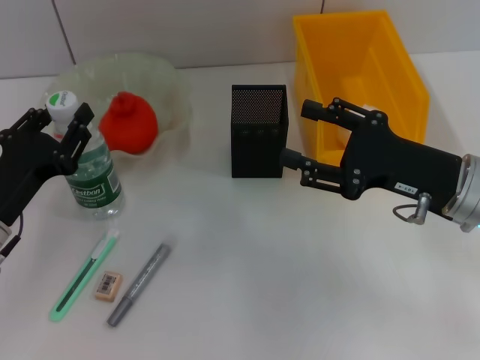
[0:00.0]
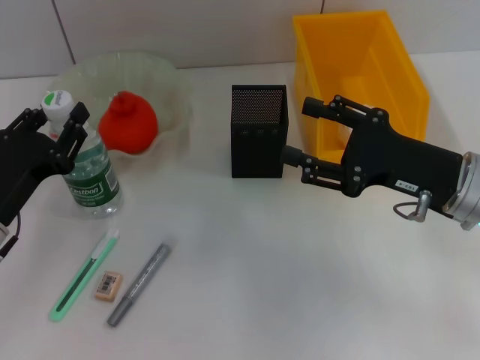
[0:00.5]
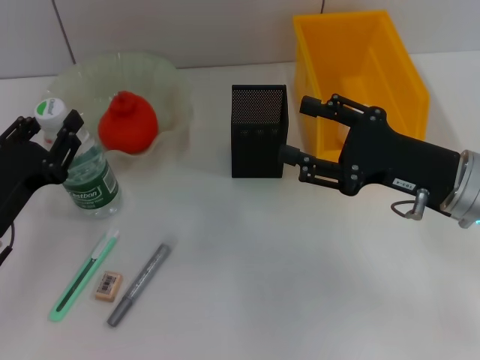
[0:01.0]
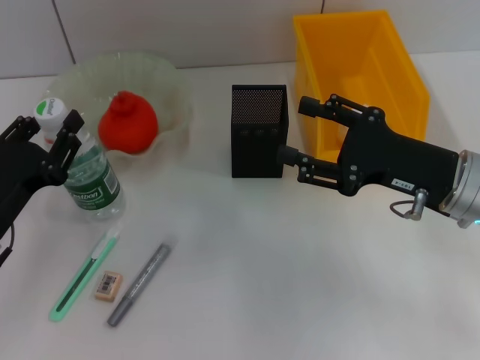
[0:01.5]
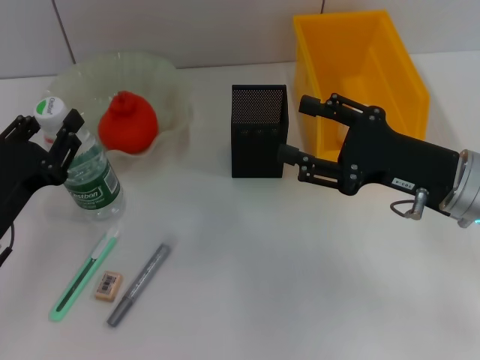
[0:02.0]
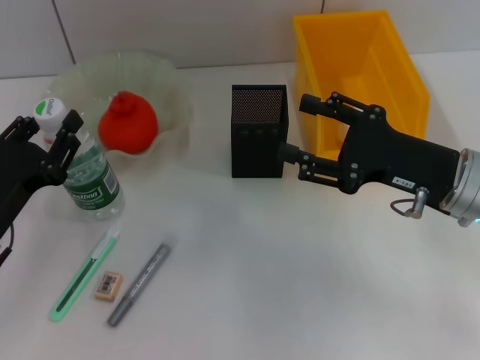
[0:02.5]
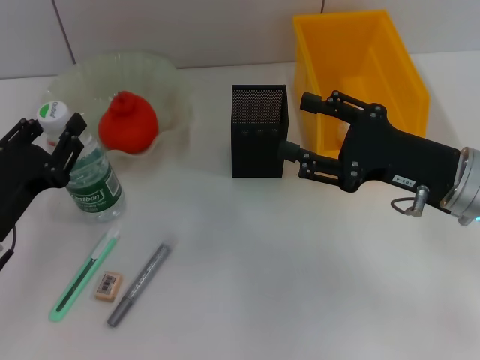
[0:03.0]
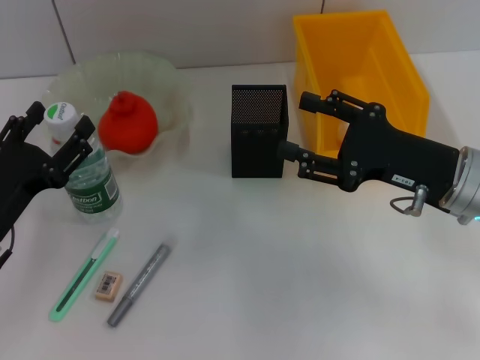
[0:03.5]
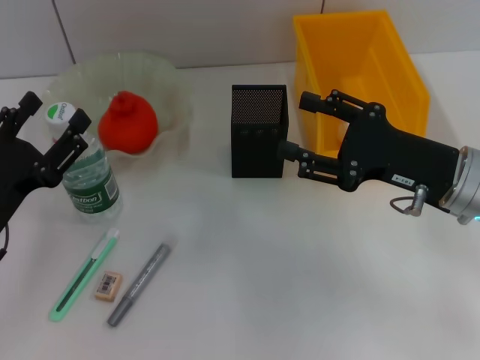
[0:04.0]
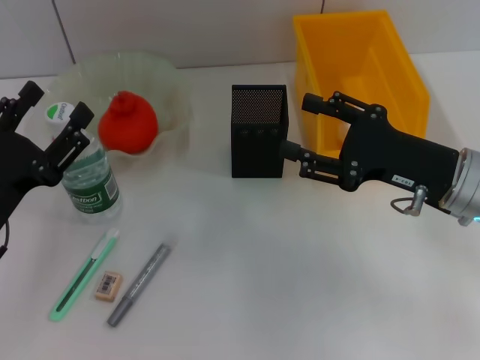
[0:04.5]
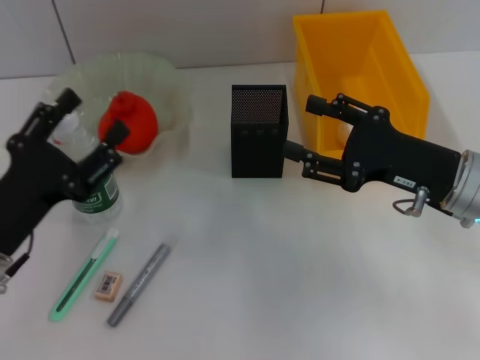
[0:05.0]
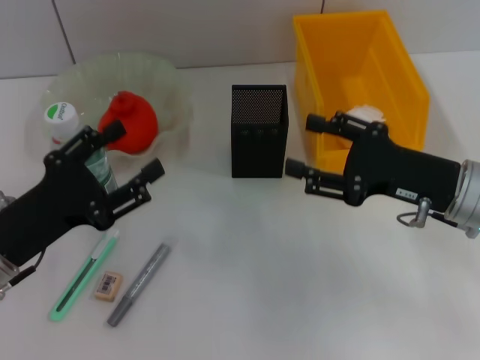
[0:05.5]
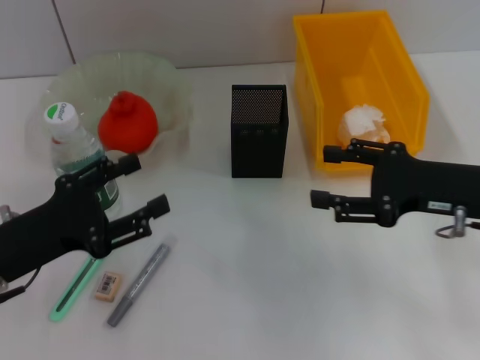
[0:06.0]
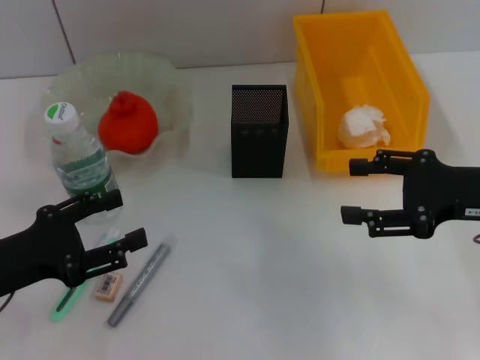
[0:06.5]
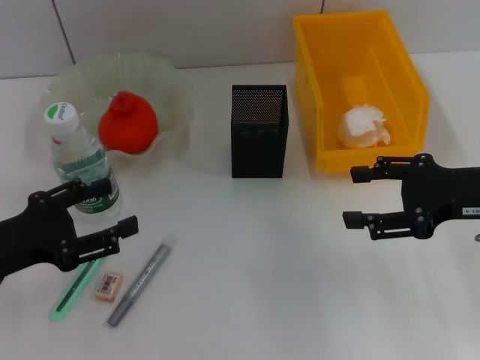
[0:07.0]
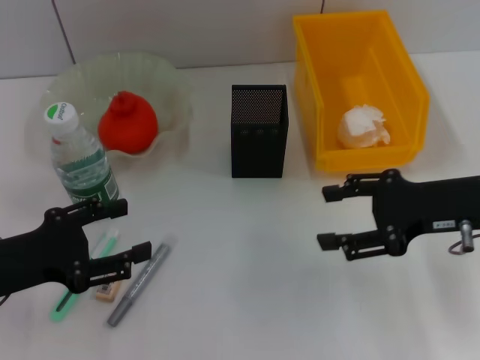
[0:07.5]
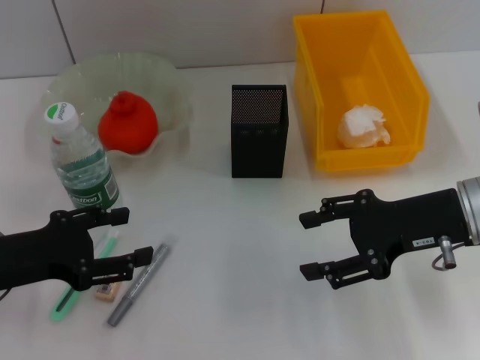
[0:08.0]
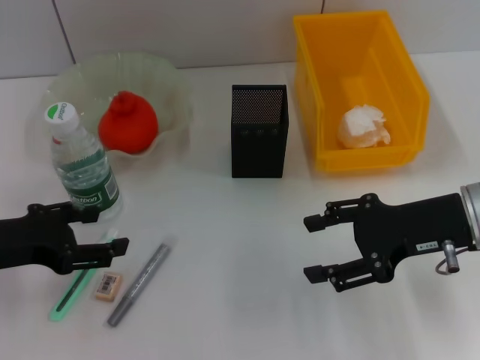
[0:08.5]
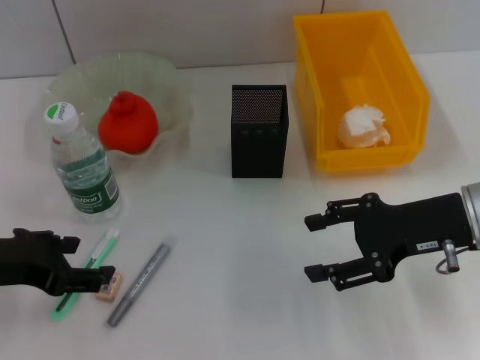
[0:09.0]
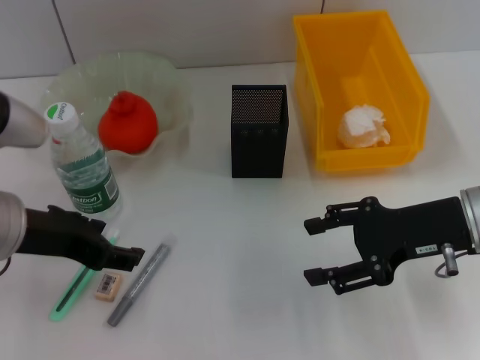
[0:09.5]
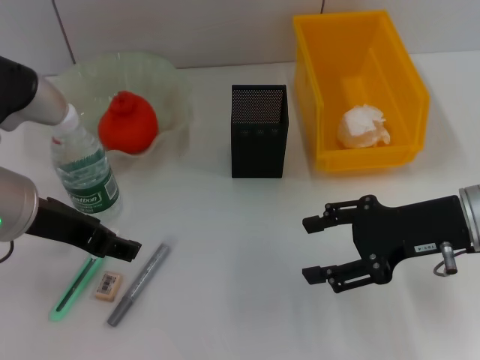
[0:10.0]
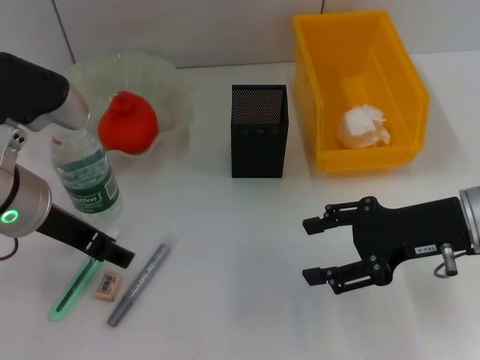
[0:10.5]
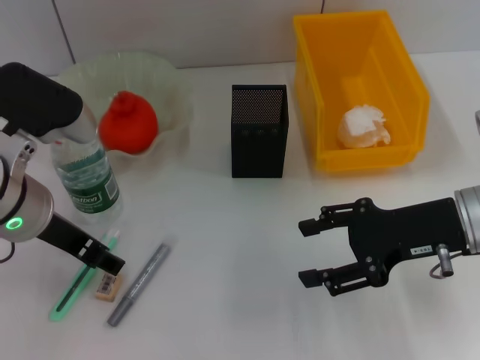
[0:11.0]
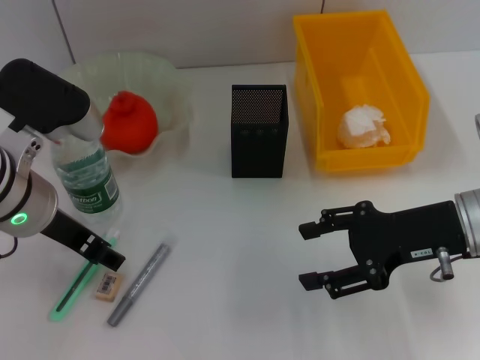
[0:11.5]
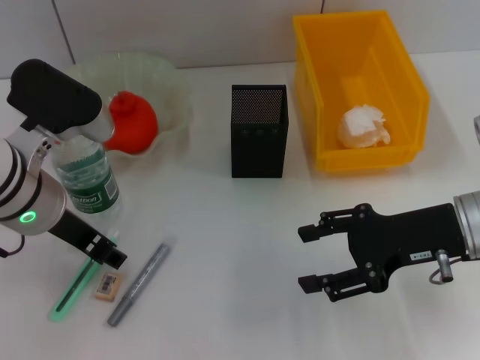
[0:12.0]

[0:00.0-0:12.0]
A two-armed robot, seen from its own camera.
Step, 0:00.0 to 0:03.5: Place the water bottle on the table with the left hand.
0:00.0 to 0:02.0: There are only small adjustments of the grippers.
0:02.0 to 0:04.0: The left gripper opens up.
0:08.0 to 0:10.0: The left gripper heads upward and to the right, covering roughly 10 cm.
0:10.0 to 0:12.0: The grippers move only a little.

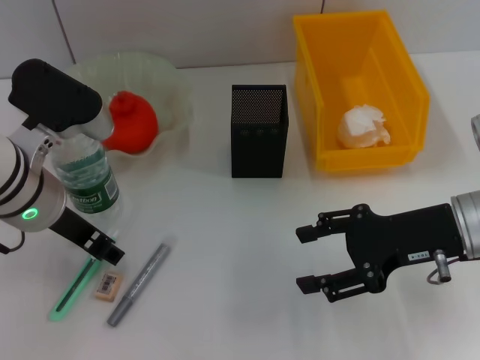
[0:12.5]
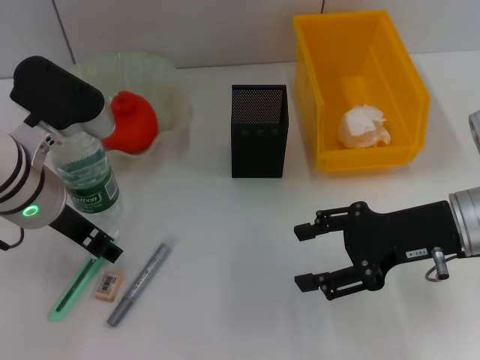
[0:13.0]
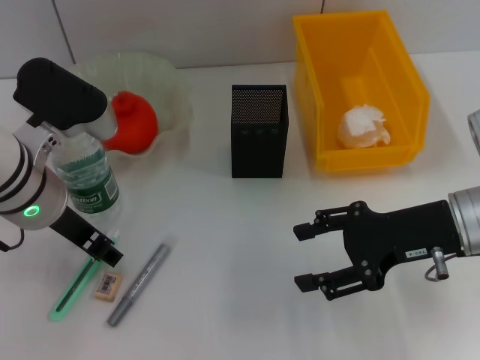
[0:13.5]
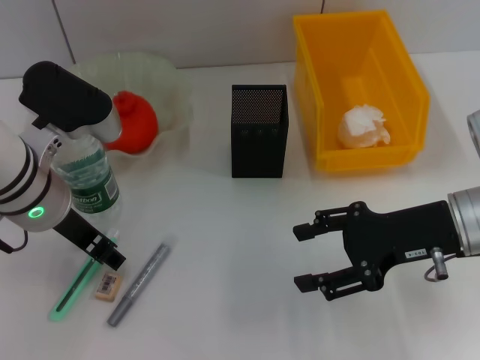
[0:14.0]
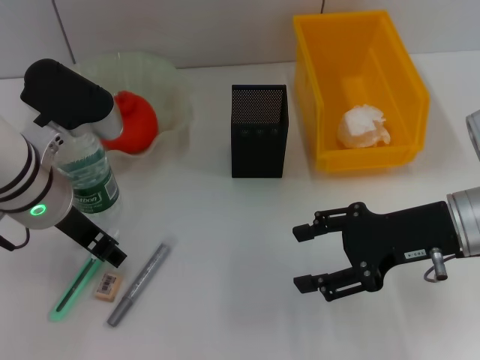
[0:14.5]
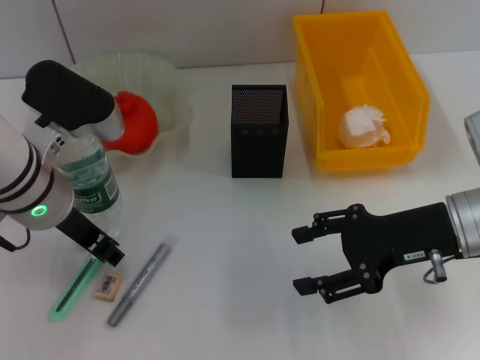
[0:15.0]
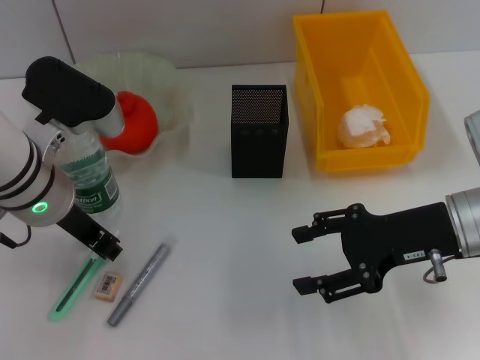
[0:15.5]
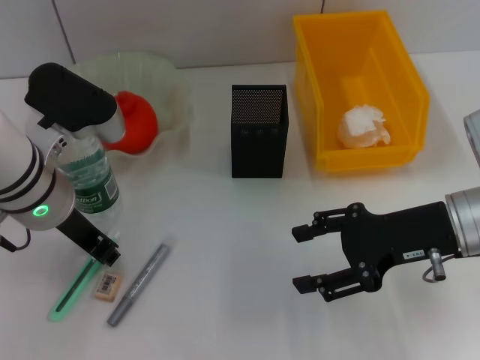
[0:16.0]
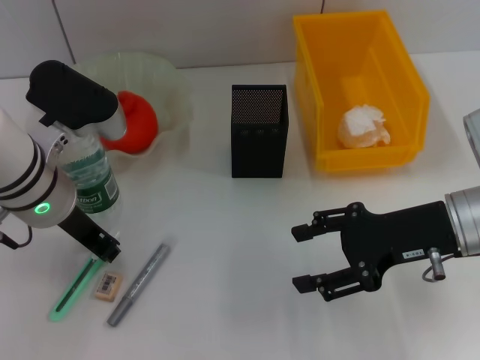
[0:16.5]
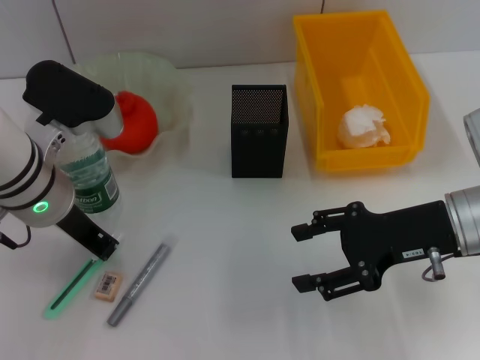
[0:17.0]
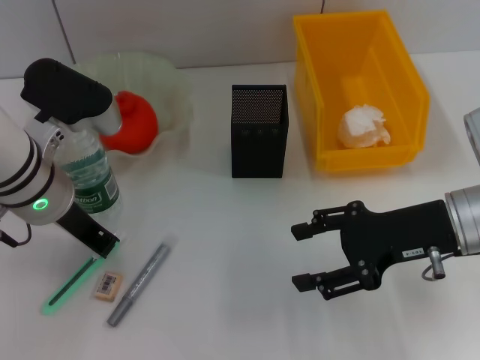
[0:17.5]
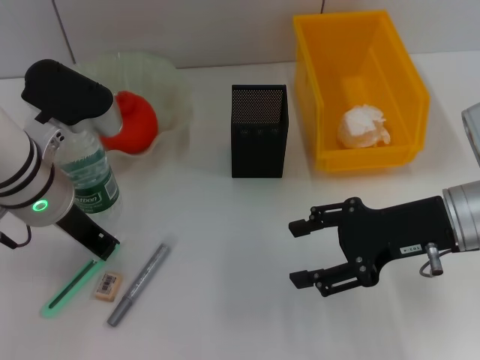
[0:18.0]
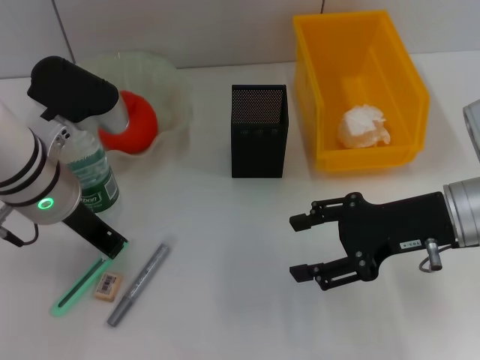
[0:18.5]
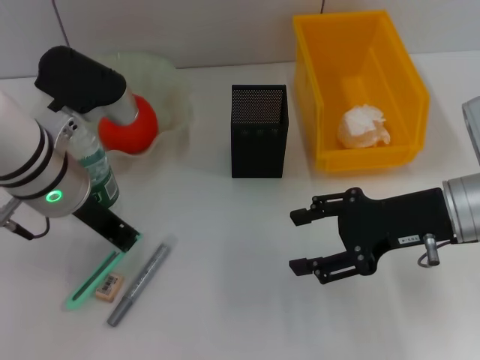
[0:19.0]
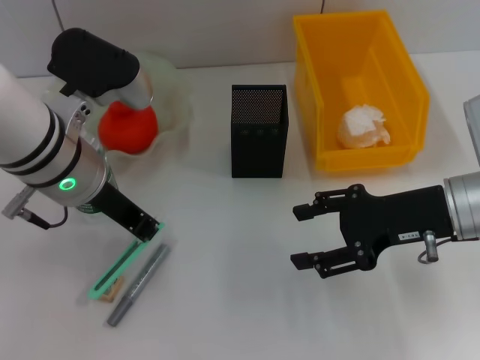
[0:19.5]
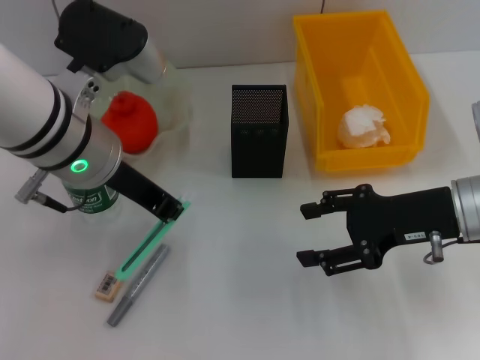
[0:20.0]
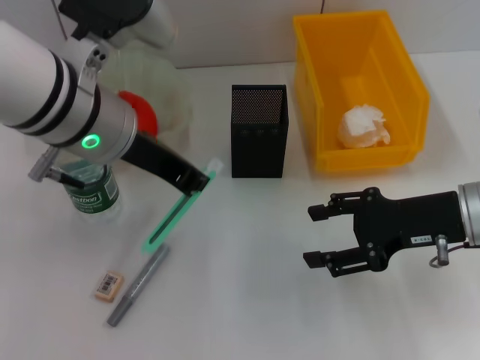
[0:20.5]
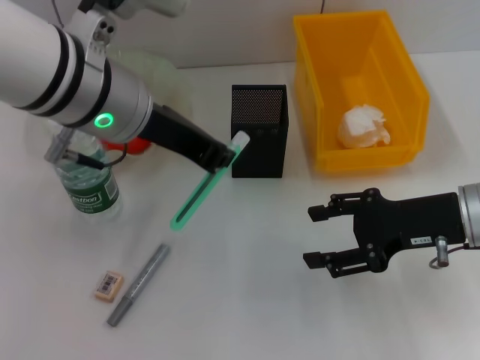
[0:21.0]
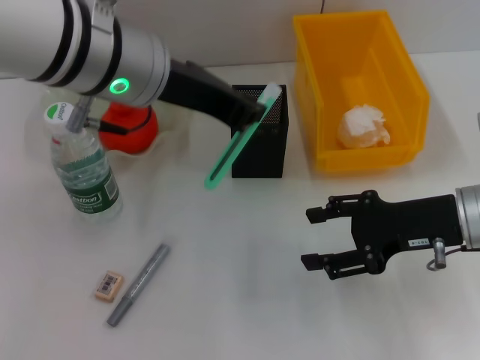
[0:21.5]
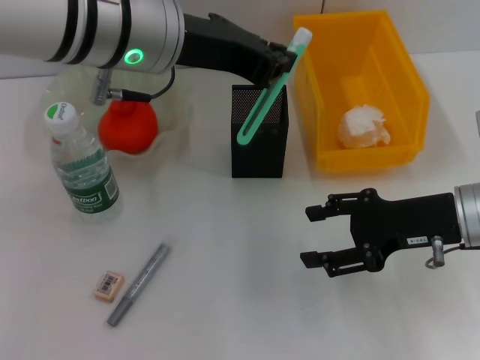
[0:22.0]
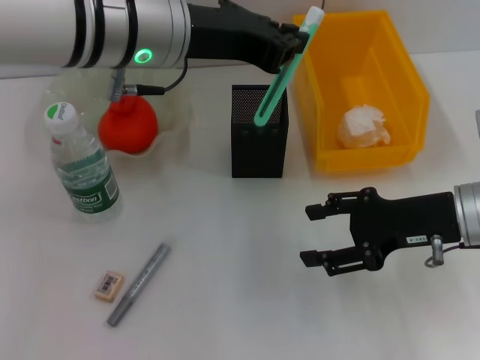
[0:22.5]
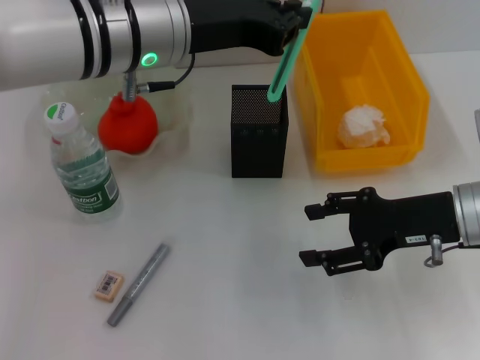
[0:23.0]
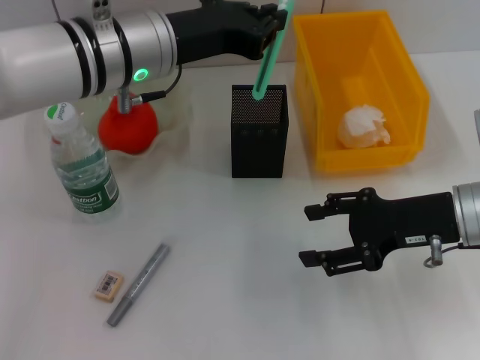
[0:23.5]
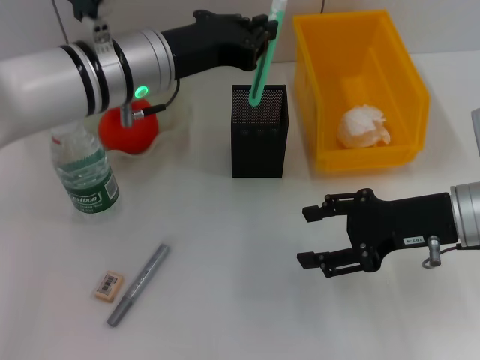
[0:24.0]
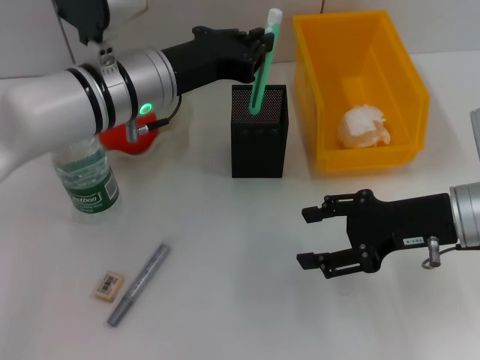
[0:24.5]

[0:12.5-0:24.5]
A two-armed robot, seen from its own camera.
Step, 0:12.5 to 0:17.5: Grab the blue utility knife with the left hand.
0:12.5 to 0:14.5: Both grippers stay put.
0:14.5 to 0:16.5: The left gripper closes up.
0:16.5 to 0:18.5: Both grippers stay put.
0:18.5 to 0:20.5: The left gripper is displaced upward and to the right by approximately 10 cm.
0:20.5 to 0:22.5: The left gripper ends up about 5 cm from where it was.
0:22.5 to 0:24.5: The left gripper moves downward, roughly 10 cm.

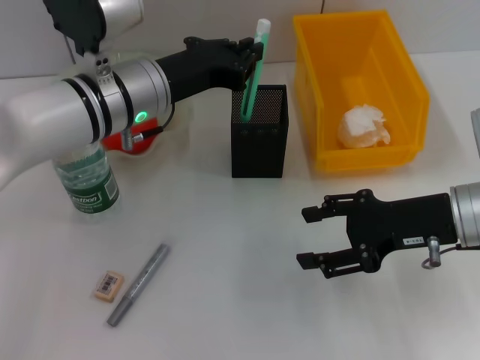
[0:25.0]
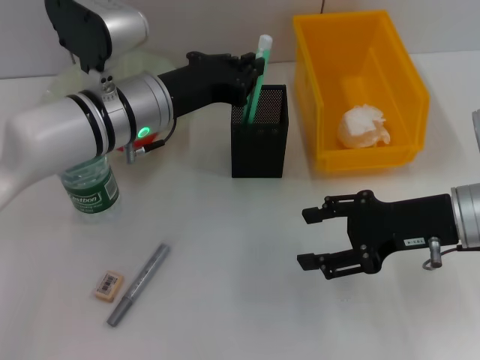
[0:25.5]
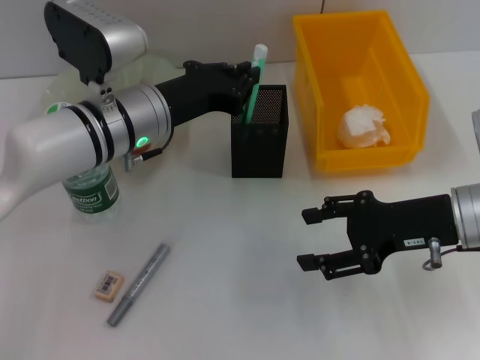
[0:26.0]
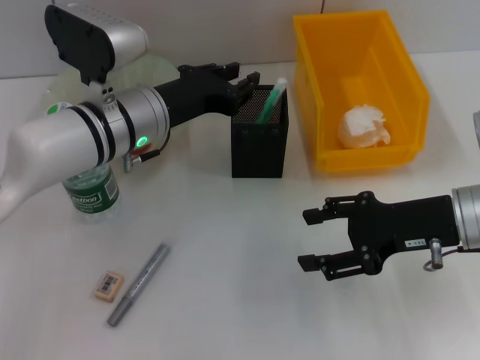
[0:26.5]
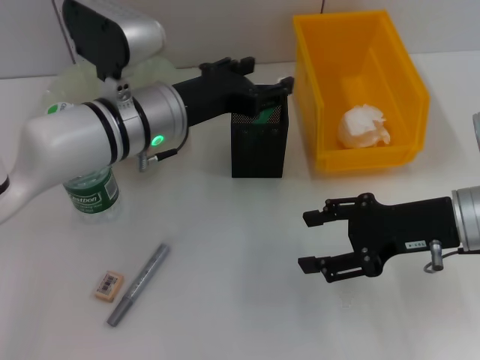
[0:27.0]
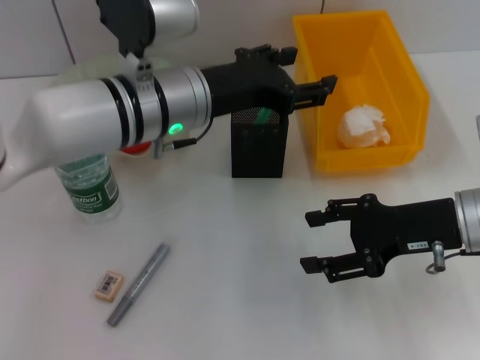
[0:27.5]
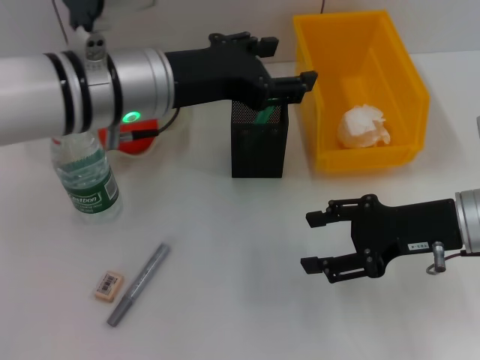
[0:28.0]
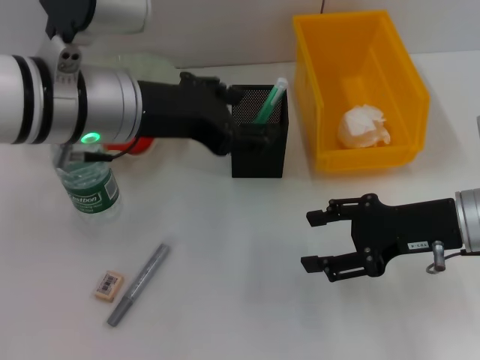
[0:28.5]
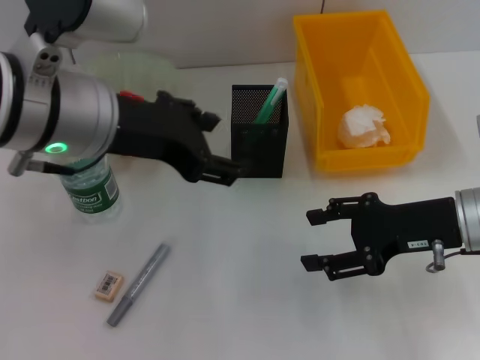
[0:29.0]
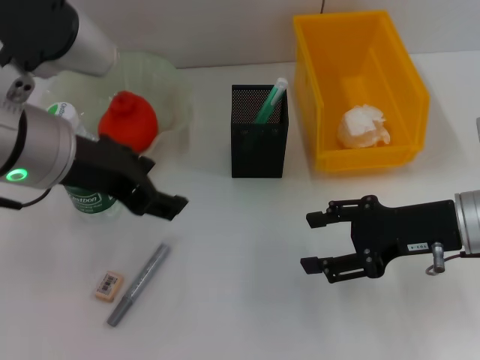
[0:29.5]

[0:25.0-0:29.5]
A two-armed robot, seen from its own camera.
0:25.0 to 0:27.0: The left gripper opens up.
0:27.0 to 0:29.5: The left gripper goes some 15 cm upward, backward and to the left.
